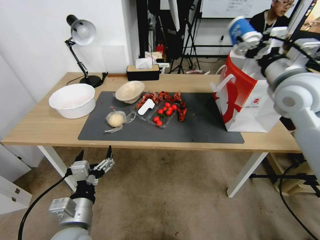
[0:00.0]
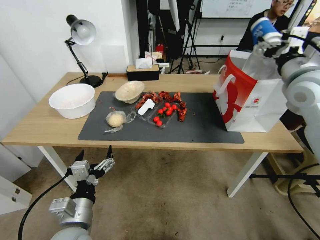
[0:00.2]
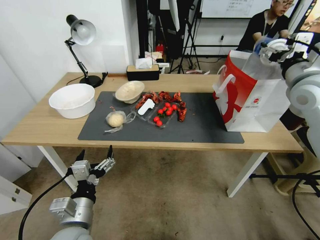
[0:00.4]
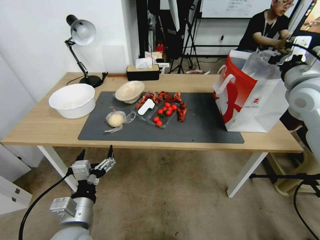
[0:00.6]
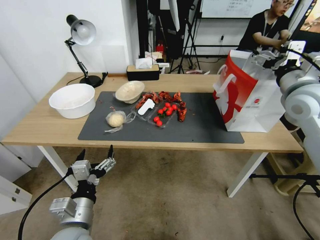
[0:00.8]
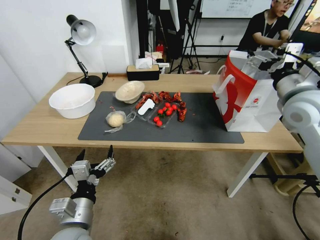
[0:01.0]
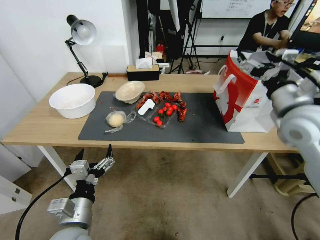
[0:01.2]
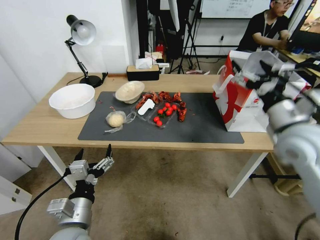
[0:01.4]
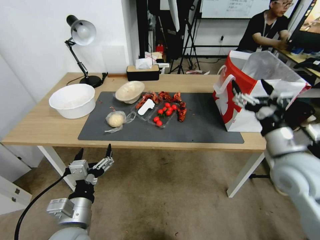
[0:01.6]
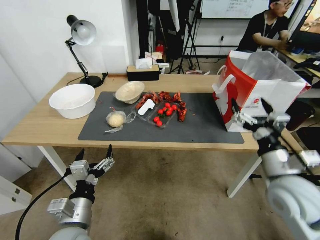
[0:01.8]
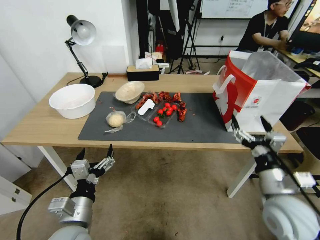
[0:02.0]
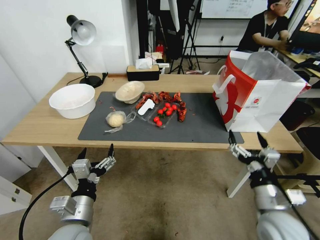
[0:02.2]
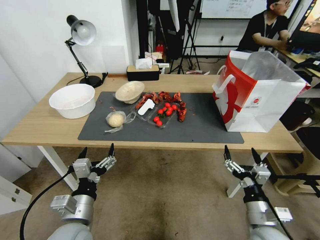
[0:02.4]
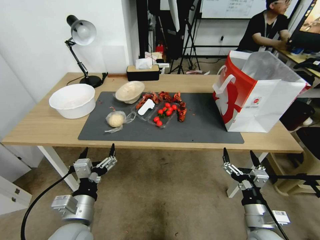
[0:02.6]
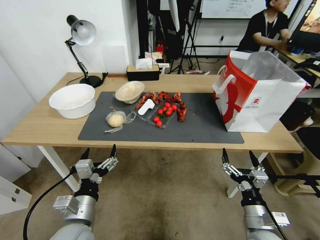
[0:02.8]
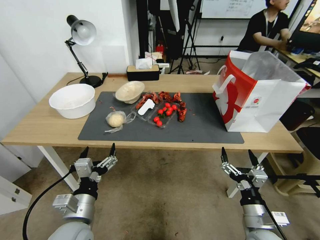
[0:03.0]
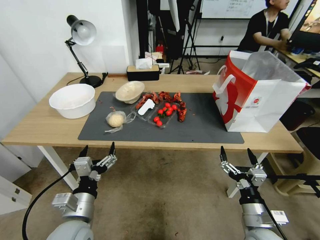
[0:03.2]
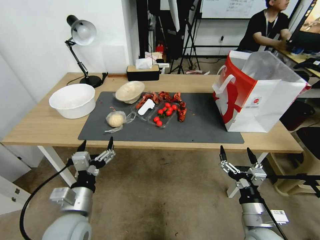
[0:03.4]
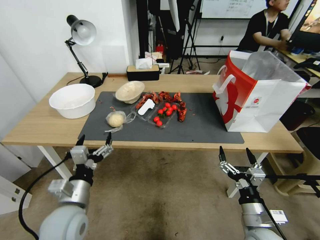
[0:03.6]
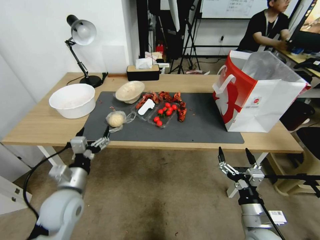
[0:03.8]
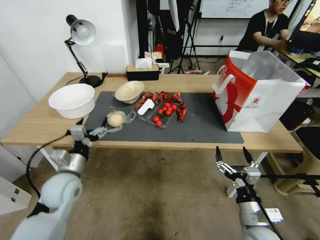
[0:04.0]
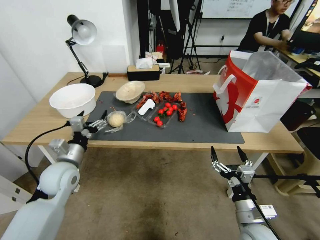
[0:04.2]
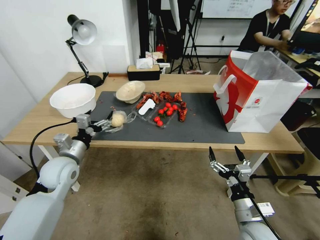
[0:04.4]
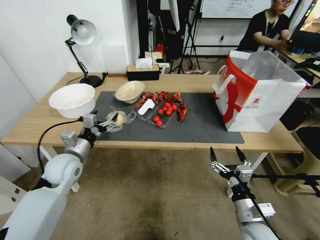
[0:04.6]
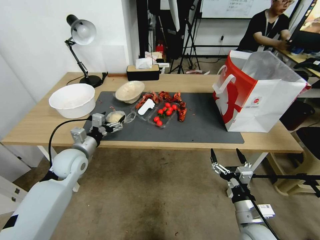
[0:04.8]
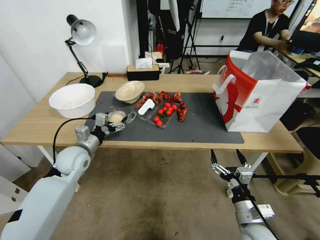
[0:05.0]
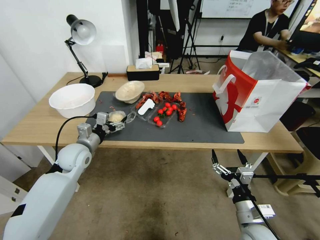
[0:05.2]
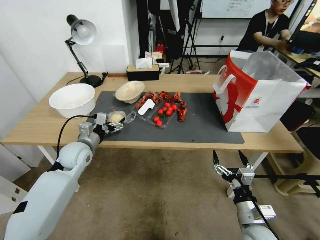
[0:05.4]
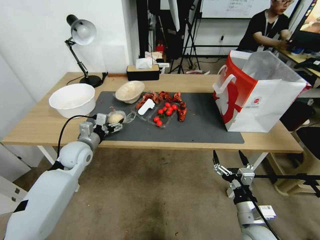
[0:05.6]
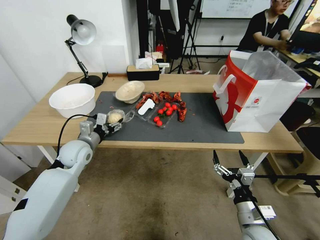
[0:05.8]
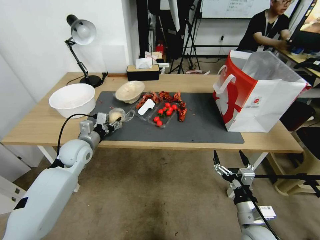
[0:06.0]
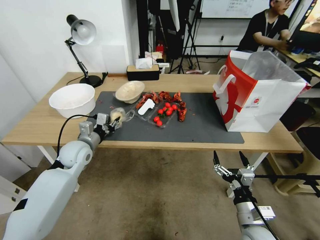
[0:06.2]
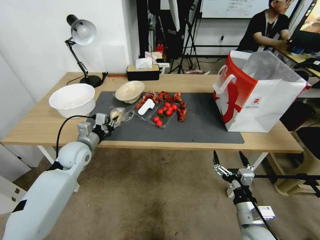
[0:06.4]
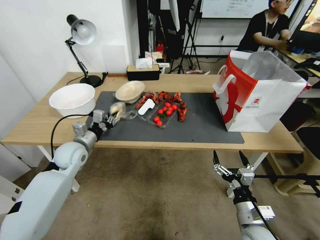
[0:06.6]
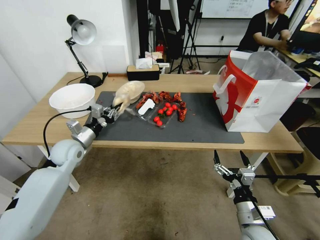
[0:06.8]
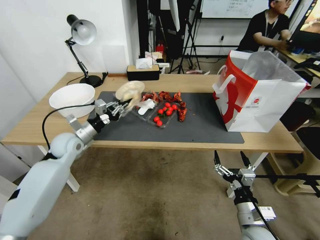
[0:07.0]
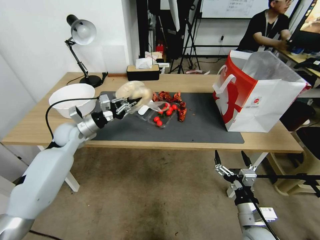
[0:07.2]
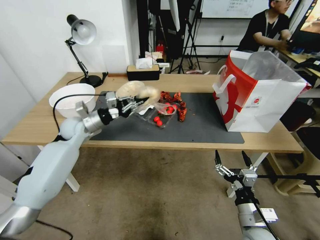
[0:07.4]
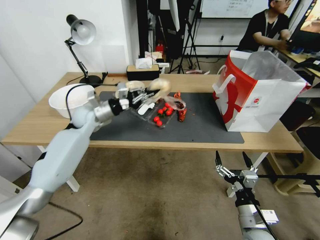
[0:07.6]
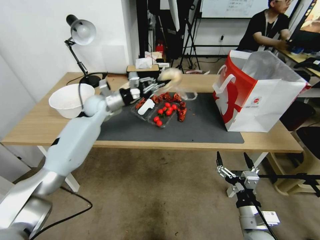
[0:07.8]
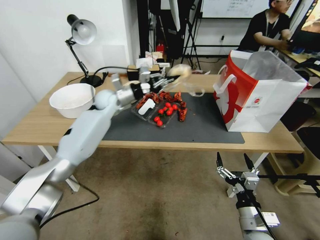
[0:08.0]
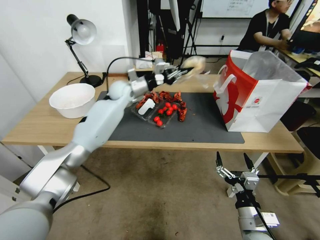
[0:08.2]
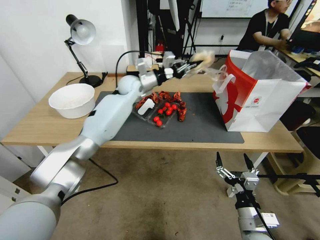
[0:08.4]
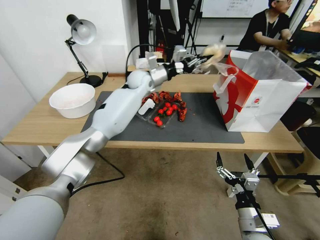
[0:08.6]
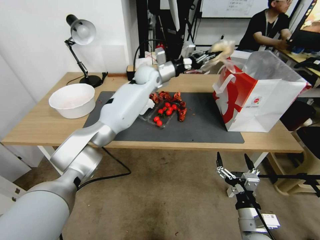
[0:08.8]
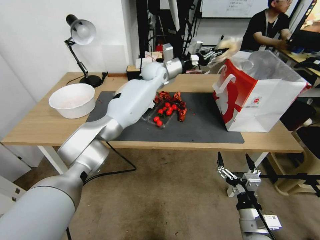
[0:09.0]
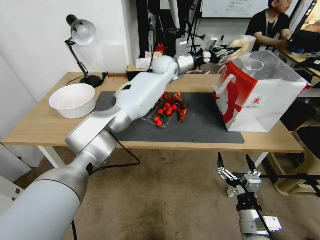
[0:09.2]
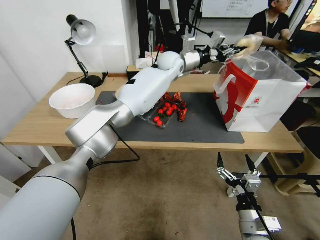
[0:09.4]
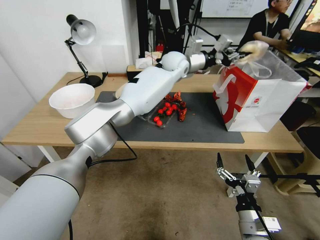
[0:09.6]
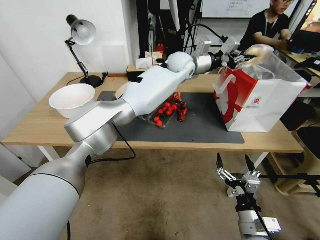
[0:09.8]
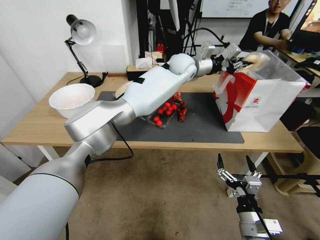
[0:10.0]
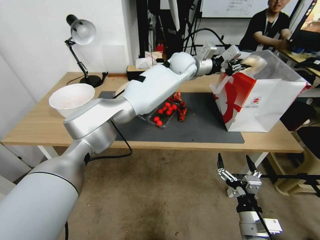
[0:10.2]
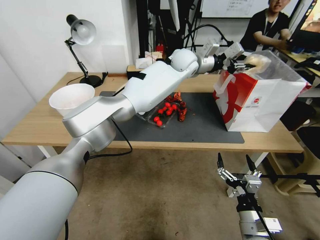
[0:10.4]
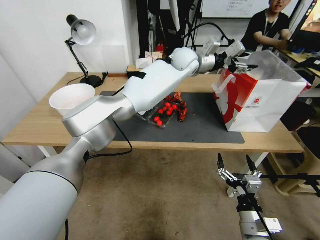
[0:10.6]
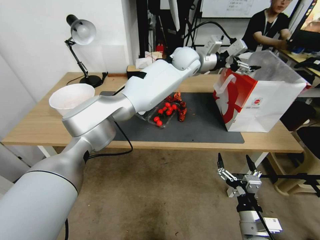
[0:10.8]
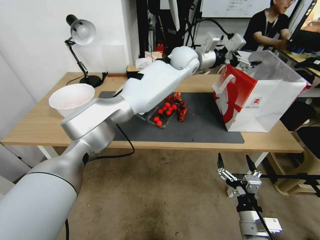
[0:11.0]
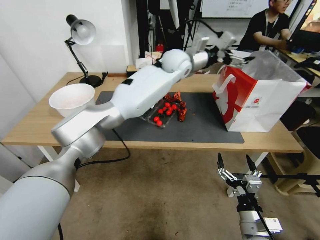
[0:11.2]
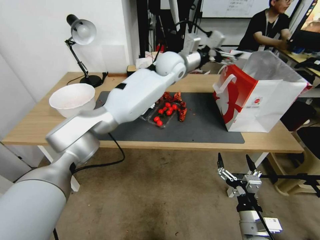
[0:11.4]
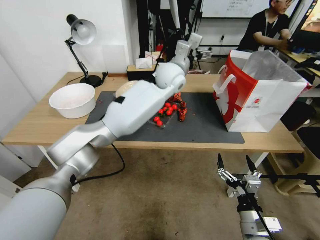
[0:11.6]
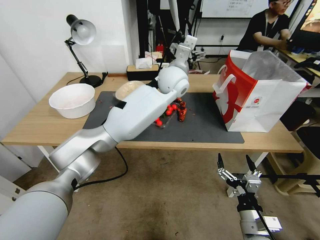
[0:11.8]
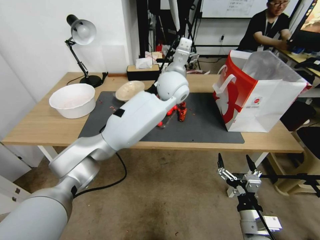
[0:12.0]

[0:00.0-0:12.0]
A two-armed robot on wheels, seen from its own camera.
0:00.0 to 0:01.6: The right gripper travels downward and backward by some 20 cm, and opens.
0:01.6 to 0:03.0: The right gripper heads downward and backward, covering some 25 cm.
0:03.0 to 0:04.4: The left gripper is displaced forward and to the left by roughly 20 cm.
0:04.4 to 0:06.0: The left gripper shifts approximately 5 cm forward, and closes its fingers.
0:06.0 to 0:07.6: The left gripper goes approximately 10 cm forward, and closes up.
0:07.6 to 0:09.0: The left gripper goes roughly 30 cm to the right, forward and upward.
0:09.0 to 0:10.4: The left gripper heads to the right and upward, covering roughly 15 cm.
0:10.4 to 0:12.0: The left gripper heads backward, covering roughly 10 cm, and opens.

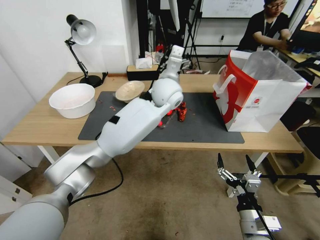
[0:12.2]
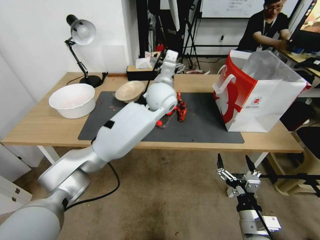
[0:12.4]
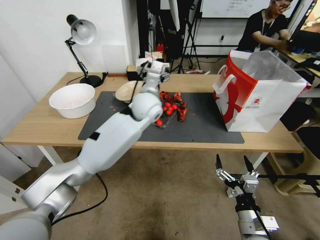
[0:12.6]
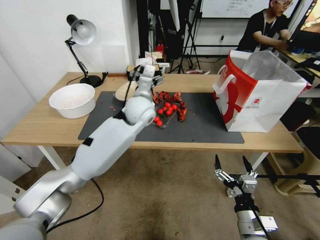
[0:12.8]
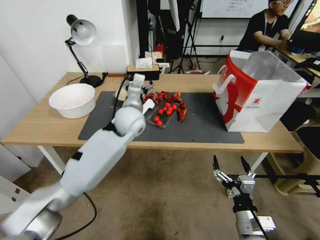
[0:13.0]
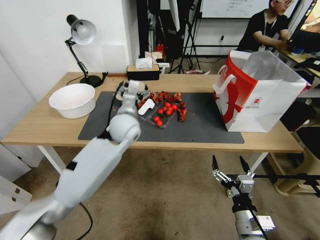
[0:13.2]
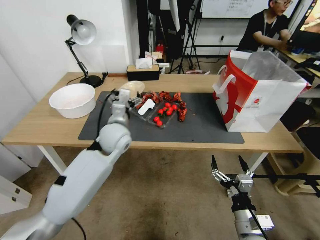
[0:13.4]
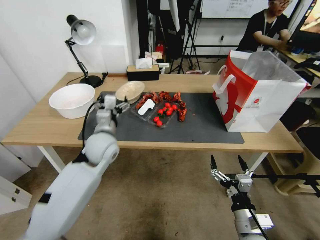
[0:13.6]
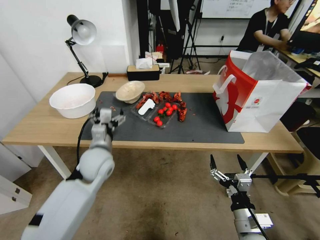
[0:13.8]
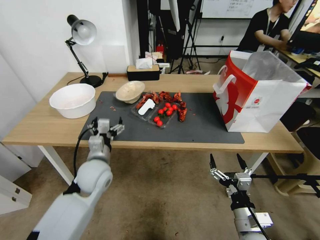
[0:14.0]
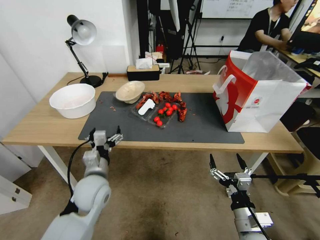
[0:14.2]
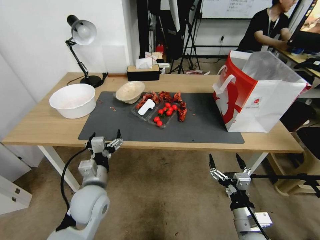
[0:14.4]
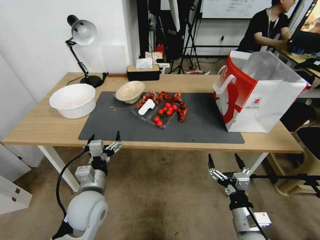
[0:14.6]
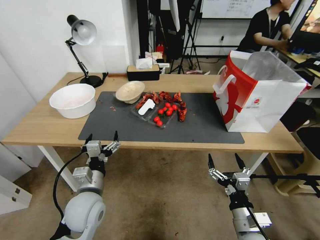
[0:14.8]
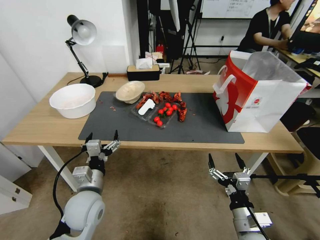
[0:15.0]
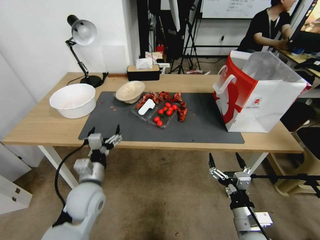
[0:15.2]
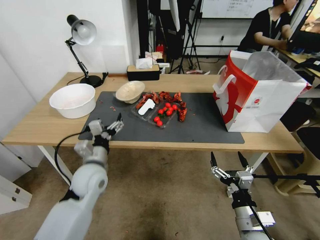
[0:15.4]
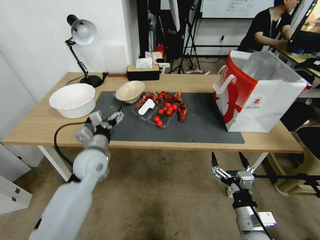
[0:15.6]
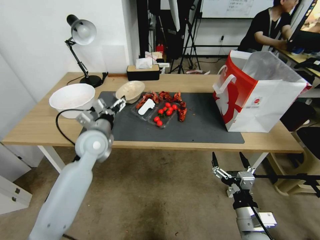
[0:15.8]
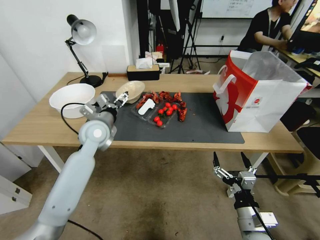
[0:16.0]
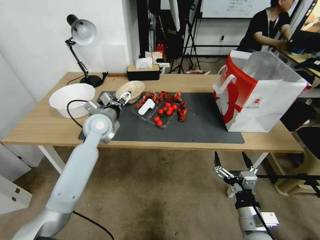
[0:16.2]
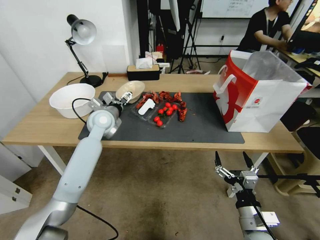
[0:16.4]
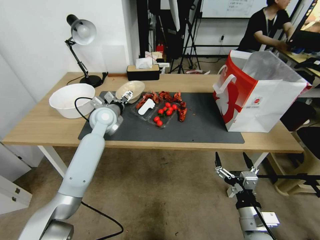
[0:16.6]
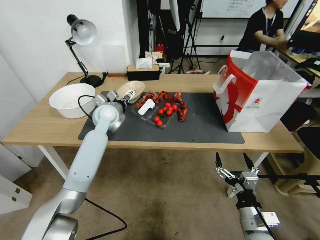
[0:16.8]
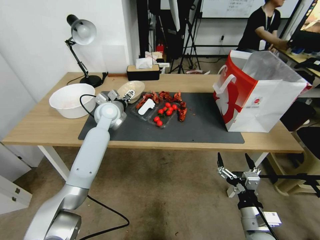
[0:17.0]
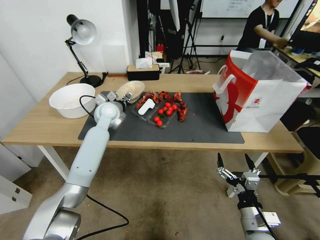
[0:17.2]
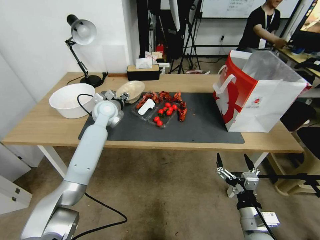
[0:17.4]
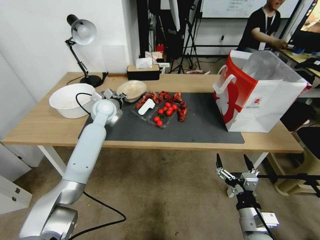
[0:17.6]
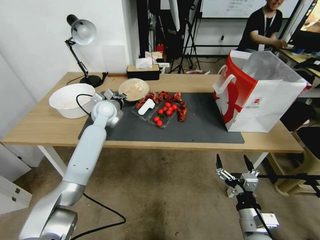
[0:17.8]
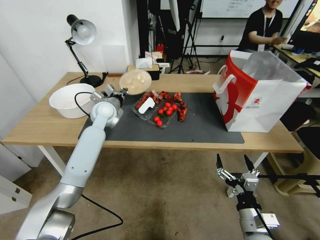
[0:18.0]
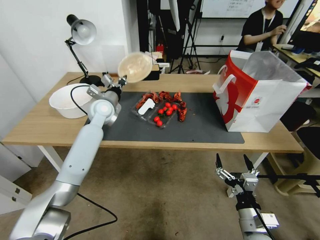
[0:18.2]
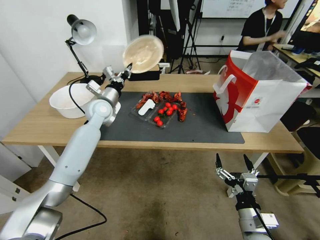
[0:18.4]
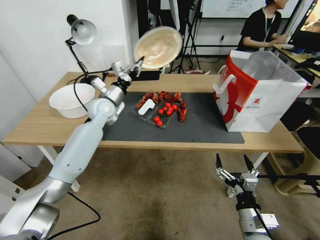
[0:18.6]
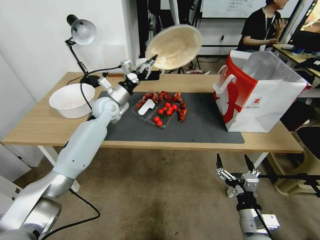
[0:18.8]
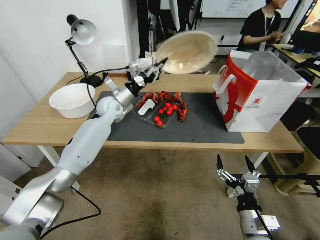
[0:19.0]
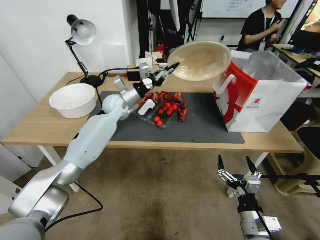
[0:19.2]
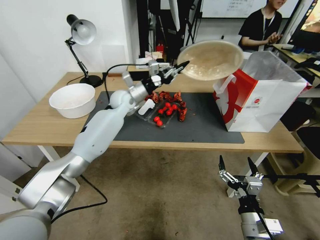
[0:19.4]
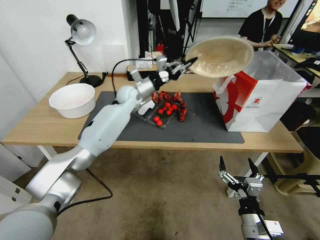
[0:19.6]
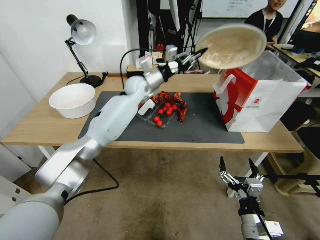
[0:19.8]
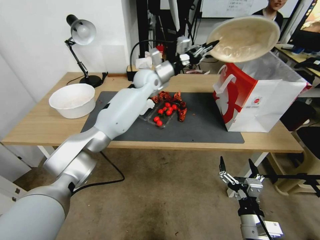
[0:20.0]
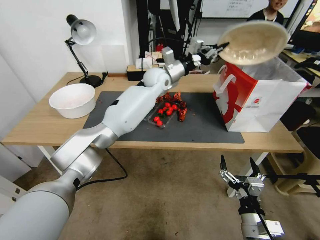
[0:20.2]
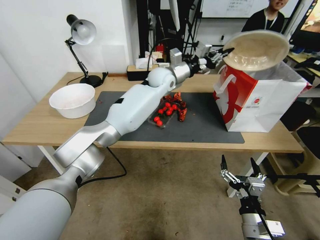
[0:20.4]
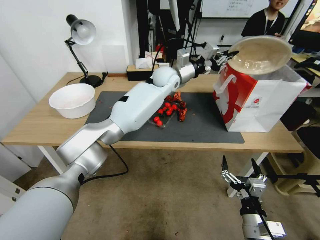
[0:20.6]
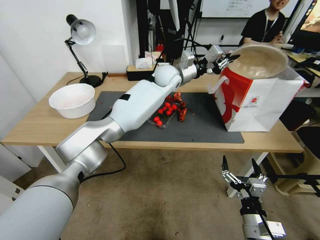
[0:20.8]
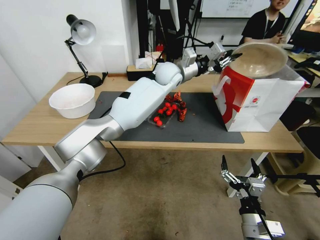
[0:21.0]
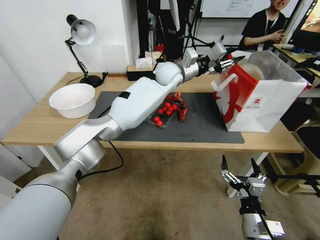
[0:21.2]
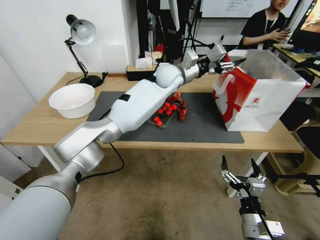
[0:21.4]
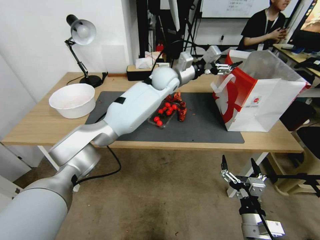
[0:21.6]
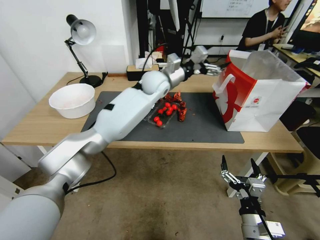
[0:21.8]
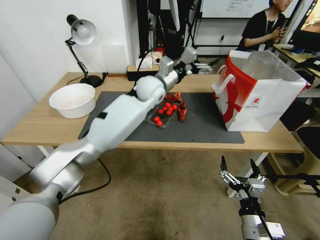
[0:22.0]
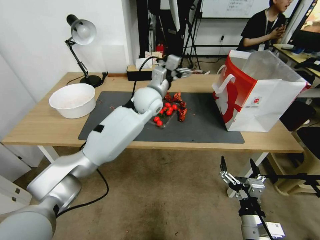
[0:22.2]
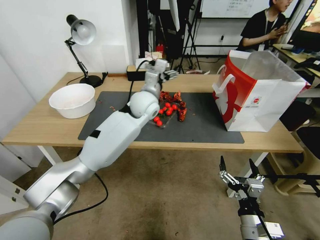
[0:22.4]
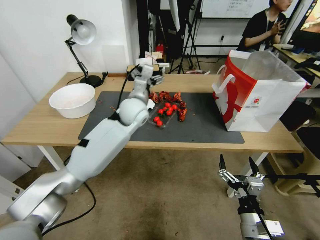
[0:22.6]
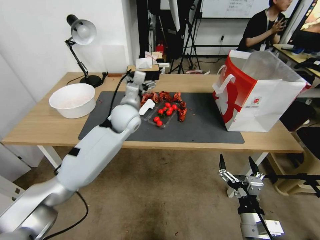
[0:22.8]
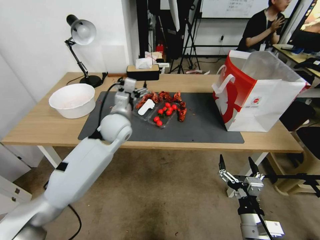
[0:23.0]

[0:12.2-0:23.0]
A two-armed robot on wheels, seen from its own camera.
0:12.2 to 0:13.8: The left gripper goes roughly 30 cm to the left, backward and downward.
0:13.8 to 0:15.2: The left gripper is displaced backward and downward by some 10 cm.
0:15.2 to 0:16.8: The left gripper shifts about 25 cm forward.
0:16.8 to 0:18.4: The left gripper closes up.
0:18.4 to 0:20.0: The left gripper is displaced to the right, upward and forward by approximately 20 cm.
0:20.0 to 0:21.4: The left gripper moves to the right, about 10 cm, and opens its fingers.
0:21.4 to 0:23.0: The left gripper shifts some 25 cm to the left, backward and downward, and opens.
